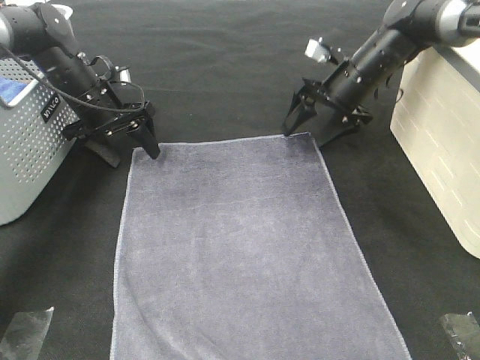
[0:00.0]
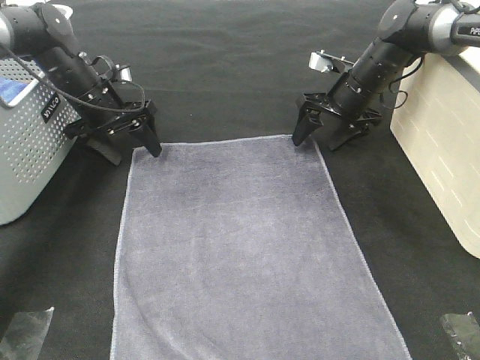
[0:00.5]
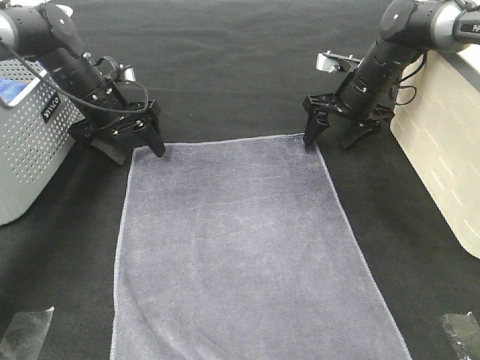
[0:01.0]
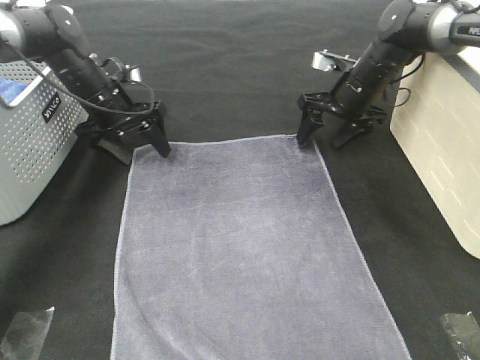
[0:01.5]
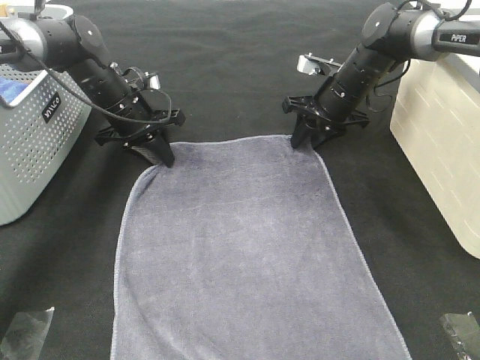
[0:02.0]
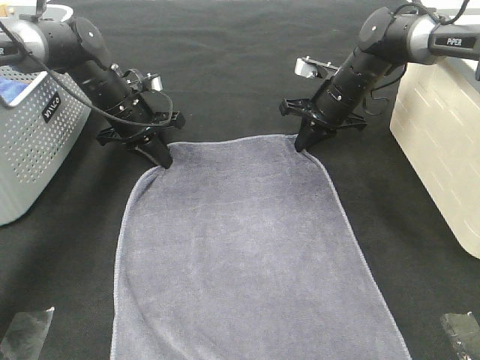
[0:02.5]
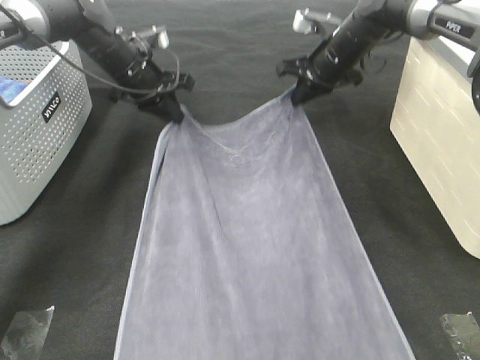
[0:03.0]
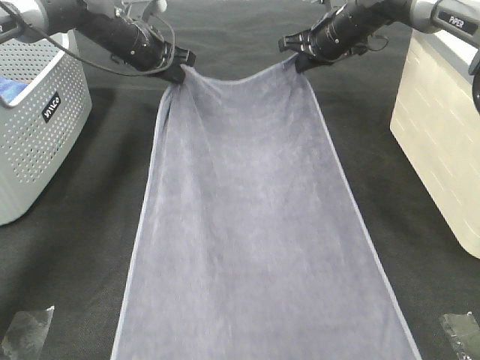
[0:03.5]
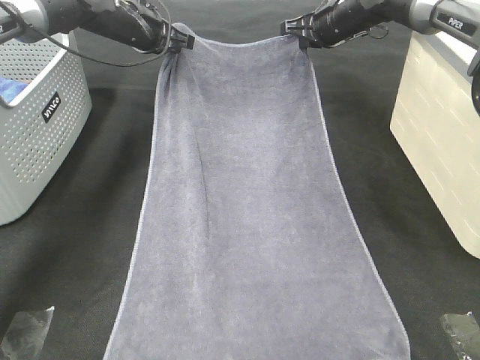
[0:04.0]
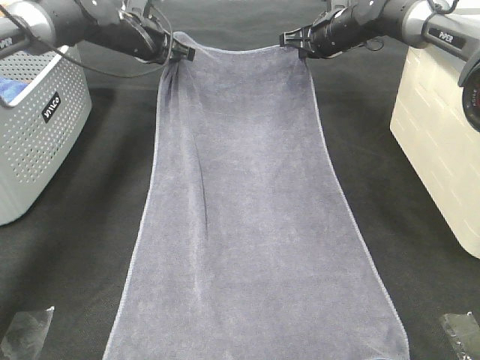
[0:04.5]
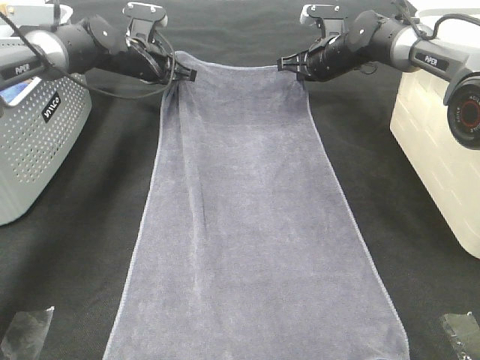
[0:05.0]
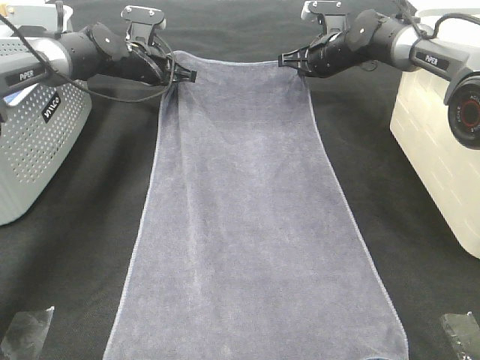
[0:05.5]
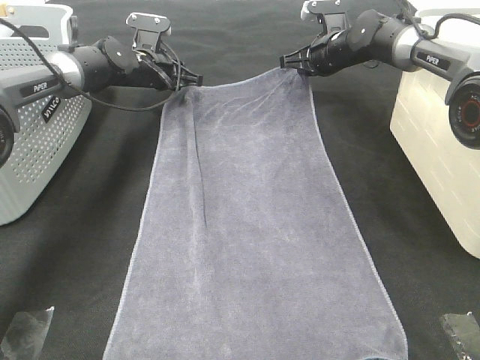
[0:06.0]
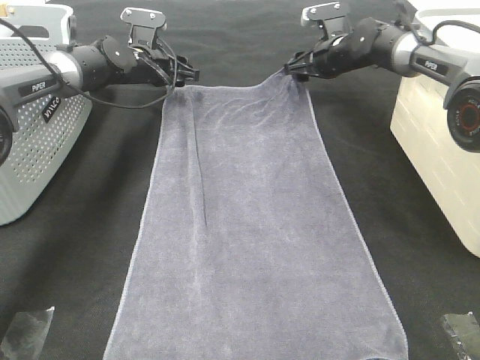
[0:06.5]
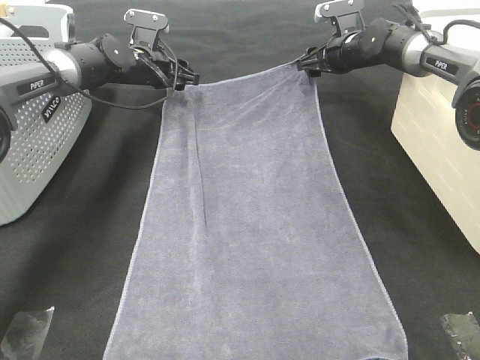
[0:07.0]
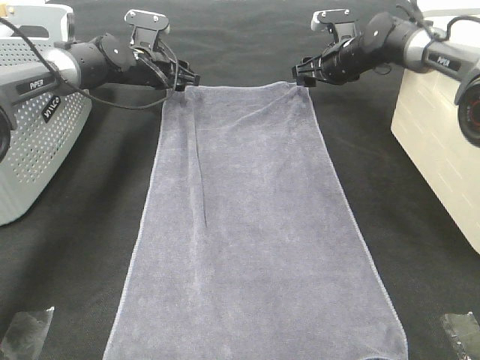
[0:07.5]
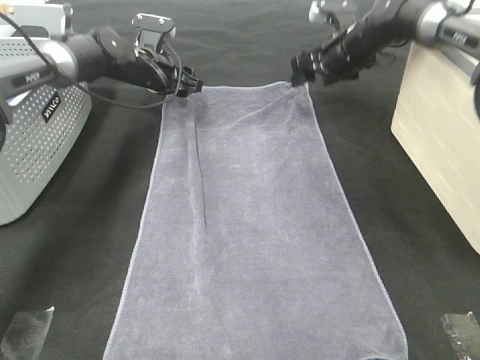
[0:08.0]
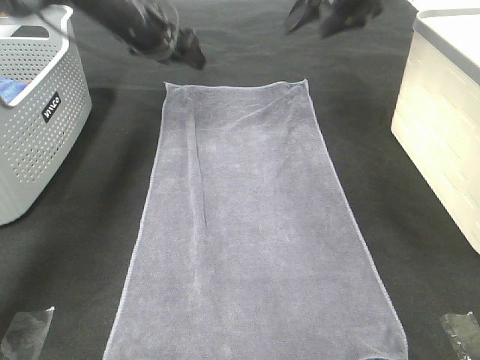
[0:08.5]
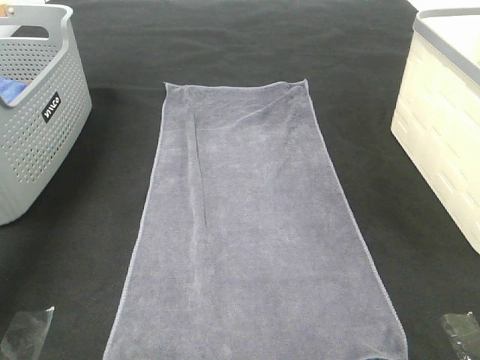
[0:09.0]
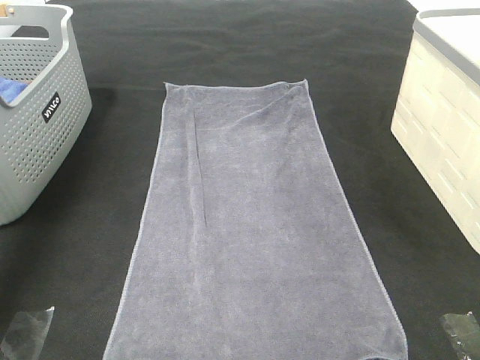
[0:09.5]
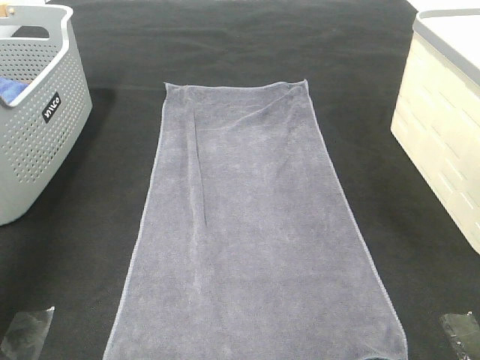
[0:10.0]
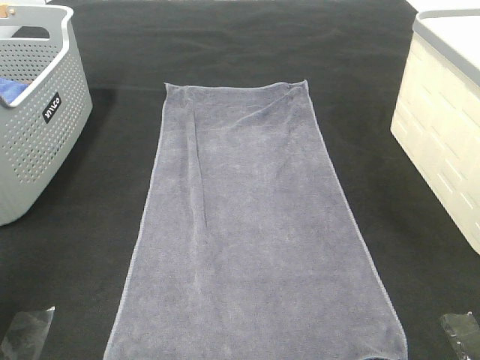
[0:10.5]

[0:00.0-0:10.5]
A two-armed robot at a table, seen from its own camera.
Task of the whole recording: Remove the towel and place it.
0:00.0 to 0:02.0: The left gripper closes, while the right gripper closes up.
0:02.0 to 0:04.0: The grippers both shift upward and forward by some 10 cm. The right gripper closes its fingers.
0:04.0 to 0:06.5: Both grippers move downward, roughly 10 cm. The right gripper opens its fingers; the left gripper opens.
0:06.5 to 0:08.5: The grippers both shift upward and backward by roughly 15 cm.
0:08.5 to 0:10.5: The grippers both shift backward by approximately 50 cm.

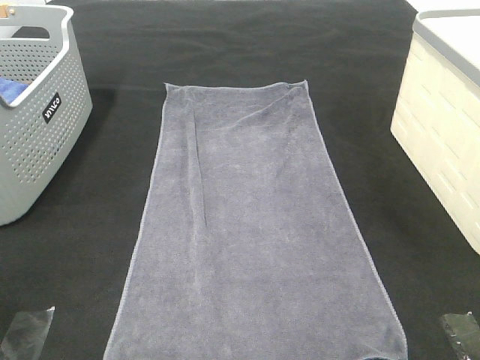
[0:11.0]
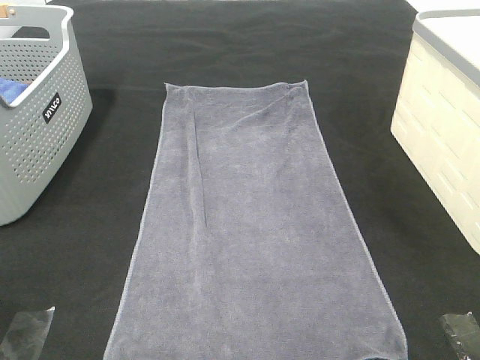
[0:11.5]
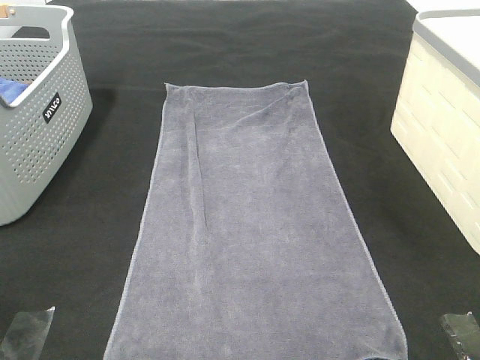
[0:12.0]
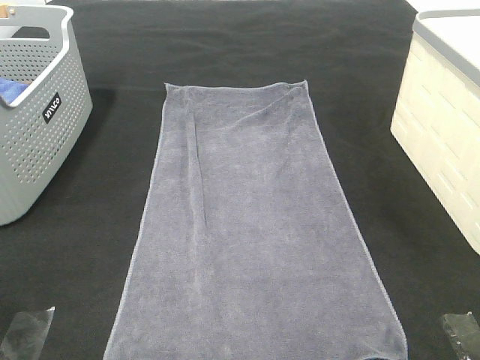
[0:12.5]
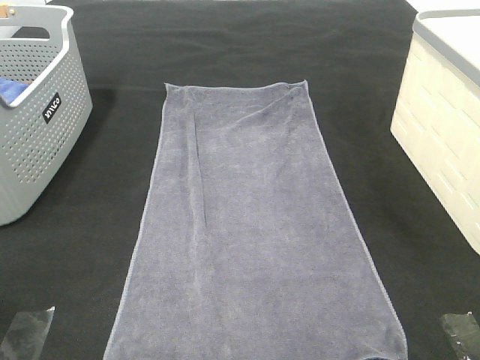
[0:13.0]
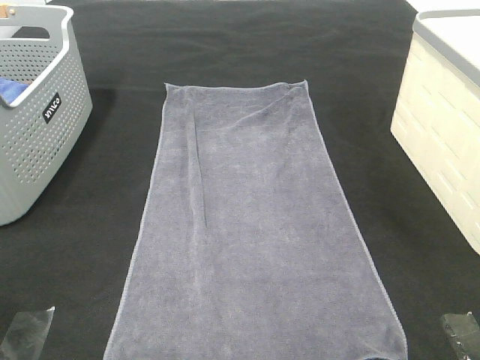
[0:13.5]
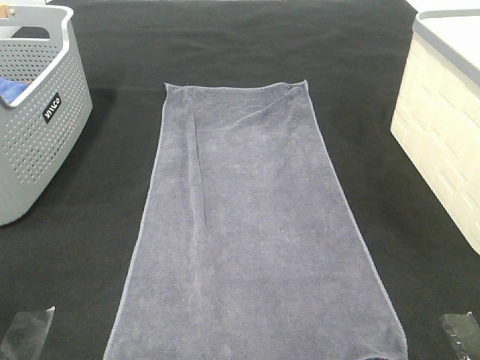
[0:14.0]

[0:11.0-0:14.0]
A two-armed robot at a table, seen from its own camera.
Task of the whole recording: Remove the towel and place it.
0:12.5 to 0:14.0: Both grippers stay about where they are.

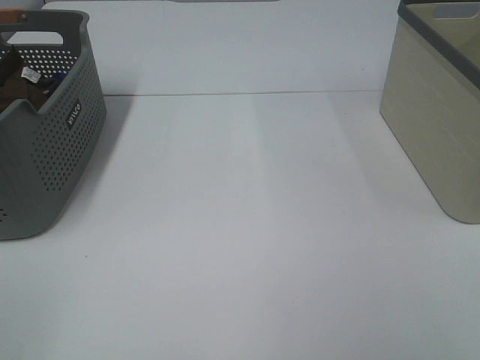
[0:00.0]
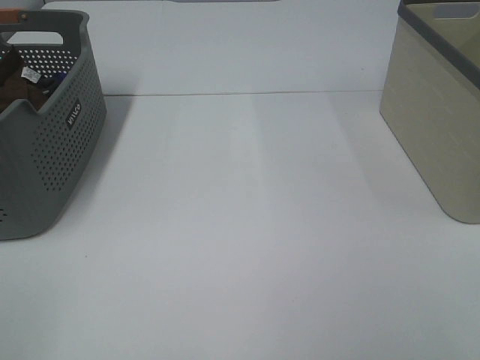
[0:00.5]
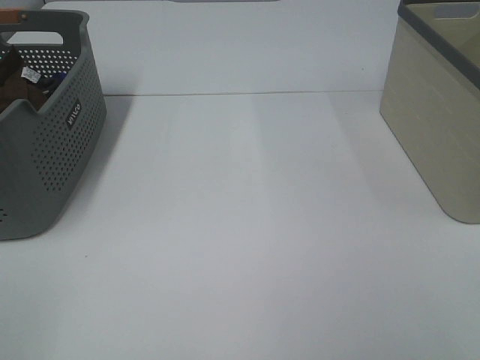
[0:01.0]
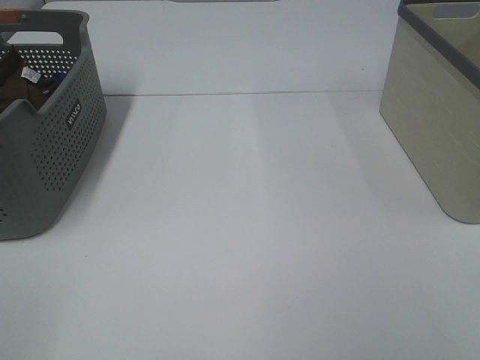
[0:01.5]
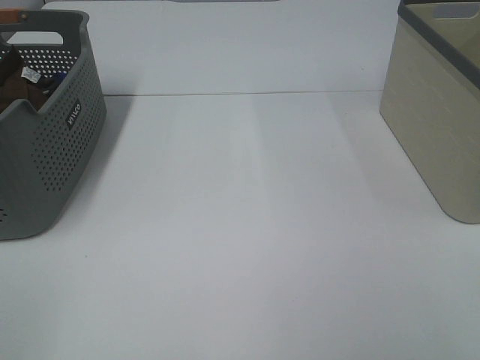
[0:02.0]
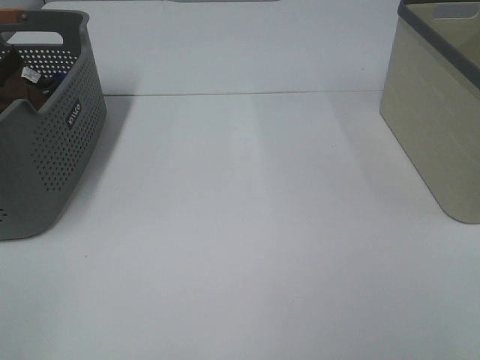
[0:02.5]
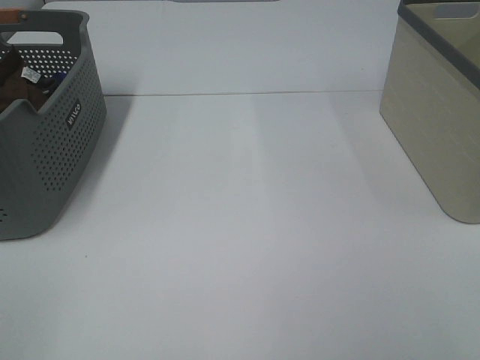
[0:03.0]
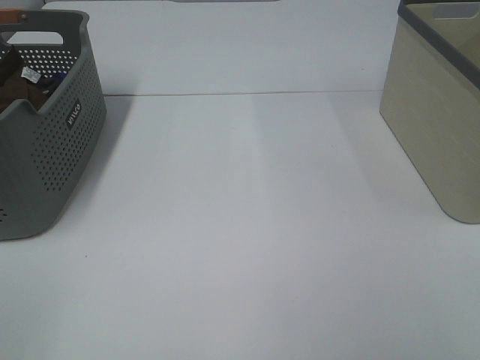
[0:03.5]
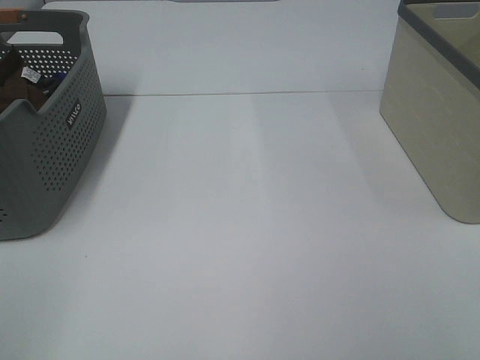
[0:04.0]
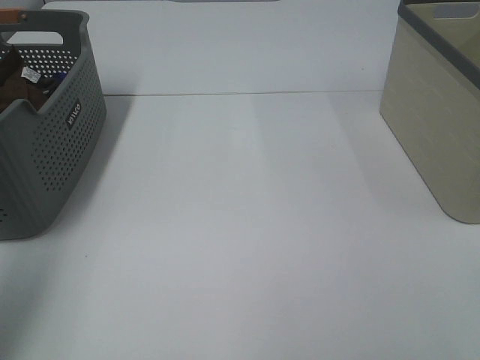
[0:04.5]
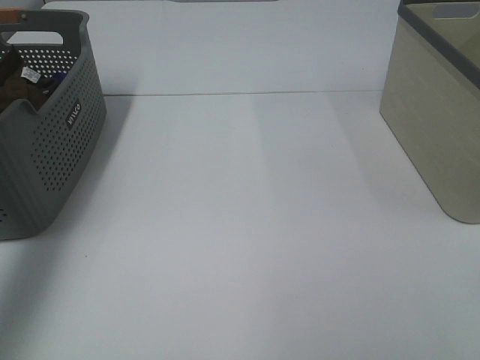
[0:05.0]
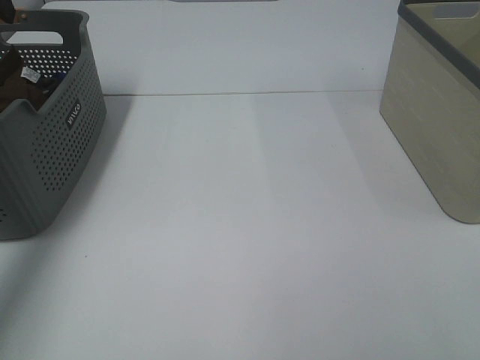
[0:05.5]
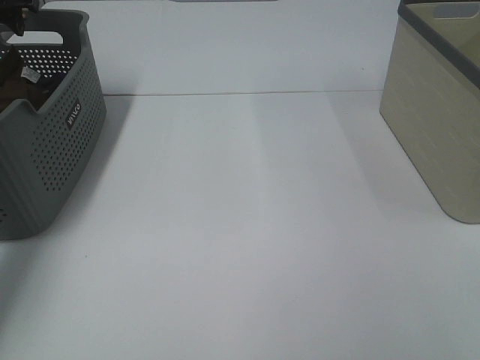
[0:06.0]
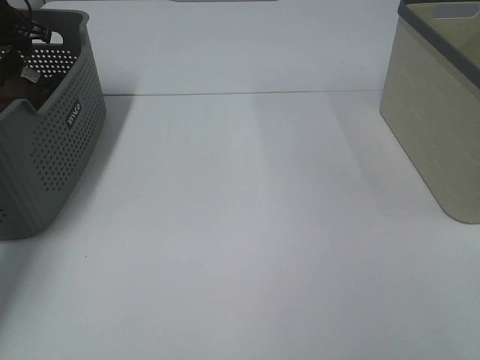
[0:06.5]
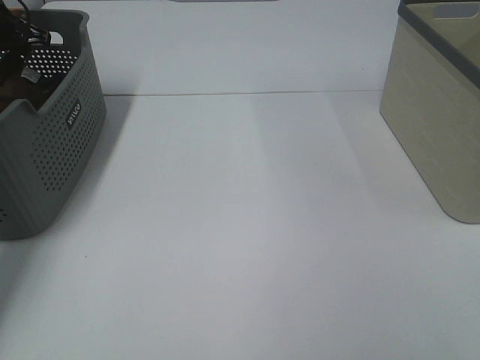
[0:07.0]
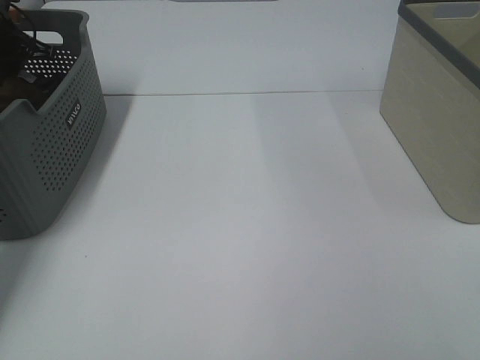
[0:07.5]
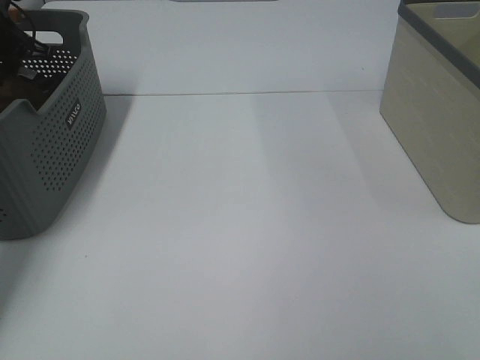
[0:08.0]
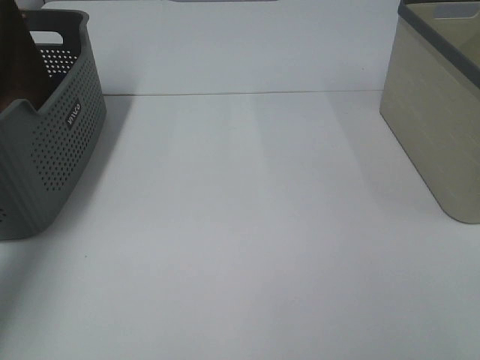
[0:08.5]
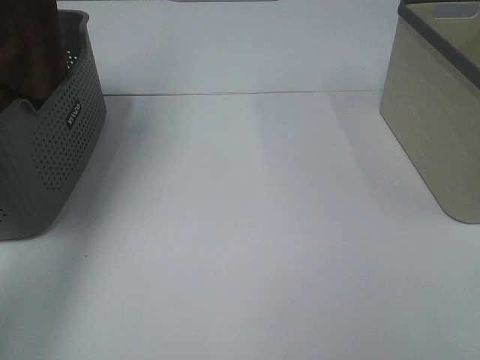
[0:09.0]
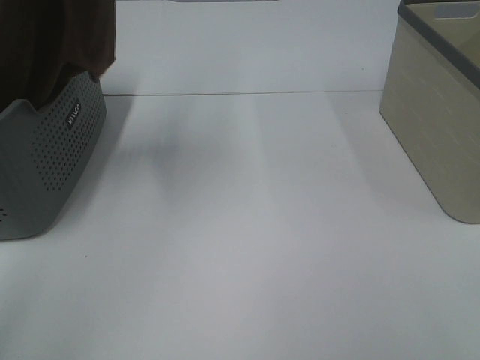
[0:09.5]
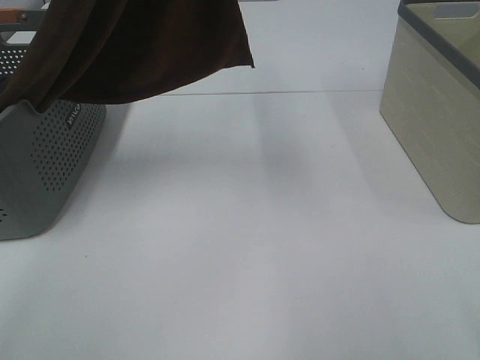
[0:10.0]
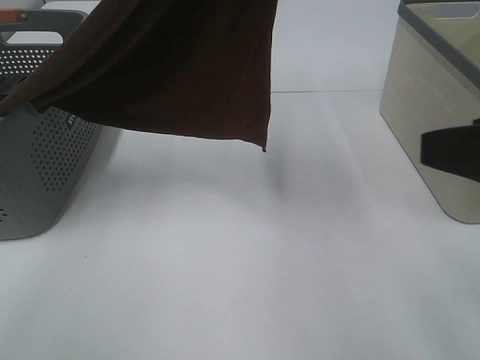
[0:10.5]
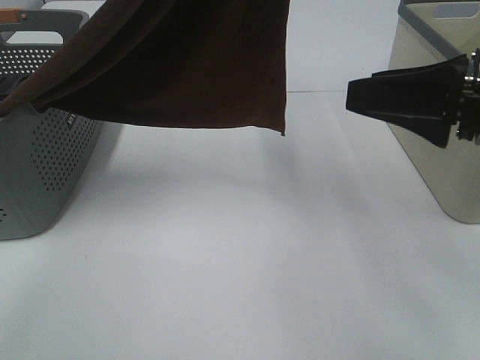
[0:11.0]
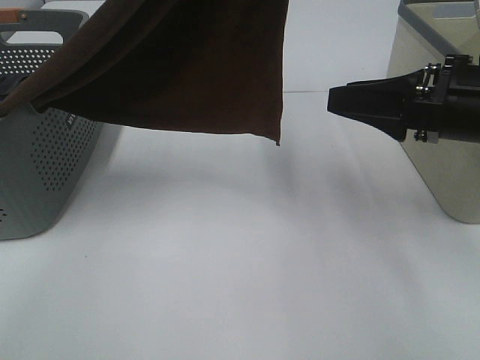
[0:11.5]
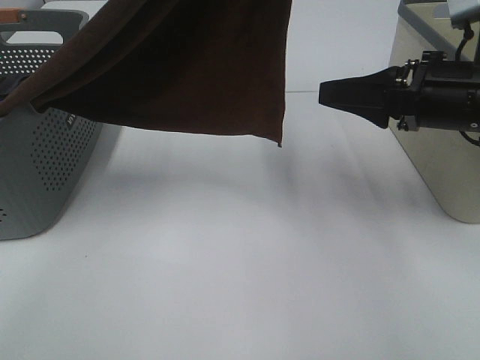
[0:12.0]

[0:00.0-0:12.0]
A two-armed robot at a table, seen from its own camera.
Task of the whole recording: Remove the towel and place it.
0:00.0 to 0:02.0: Both grippers stay about where they are.
0:04.0 to 0:06.0: The left gripper is displaced forward by roughly 50 cm.
0:06.0 to 0:08.0: The left gripper goes about 10 cm downward, and closes its fingers.
0:08.0 to 0:10.0: The left gripper shifts some 50 cm upward, to the right and backward.
0:10.0 to 0:12.0: The right gripper travels forward by roughly 25 cm, while the left gripper heads to the right, covering roughly 5 cm.
